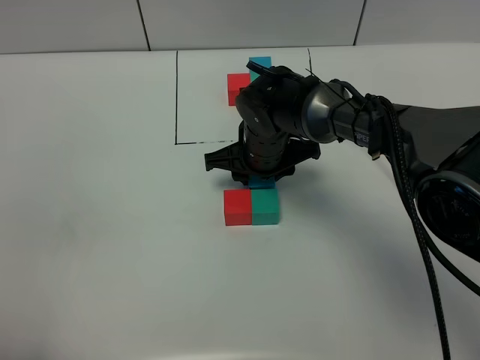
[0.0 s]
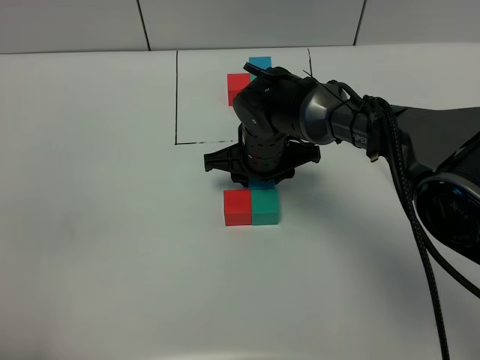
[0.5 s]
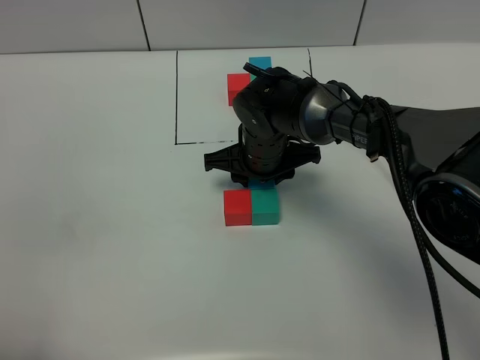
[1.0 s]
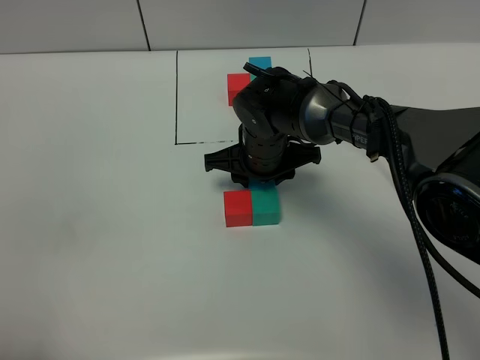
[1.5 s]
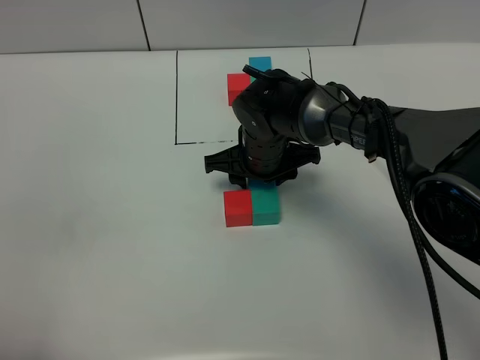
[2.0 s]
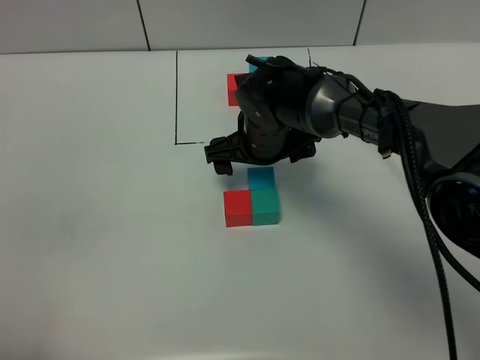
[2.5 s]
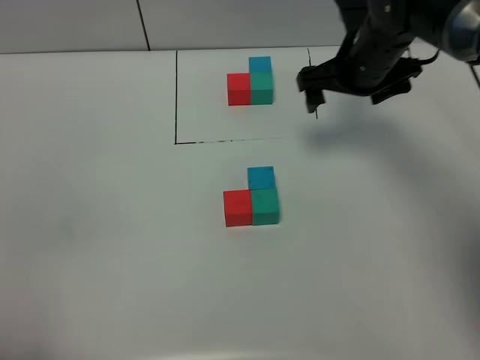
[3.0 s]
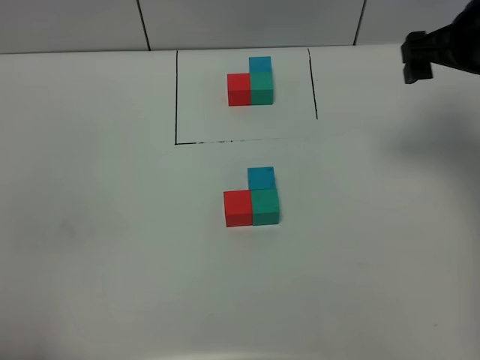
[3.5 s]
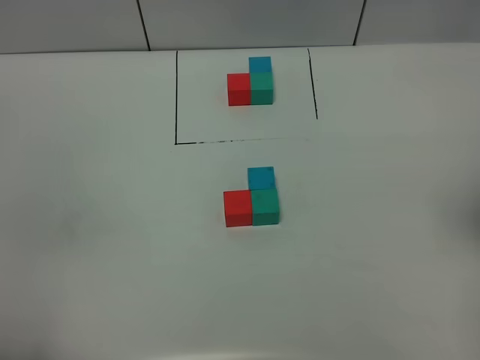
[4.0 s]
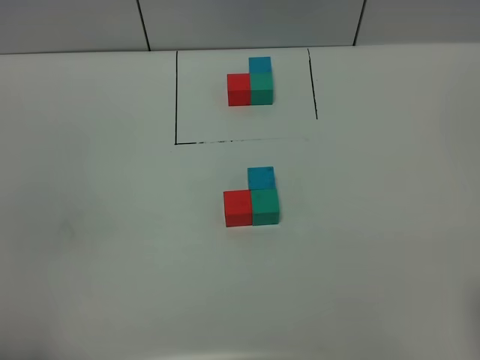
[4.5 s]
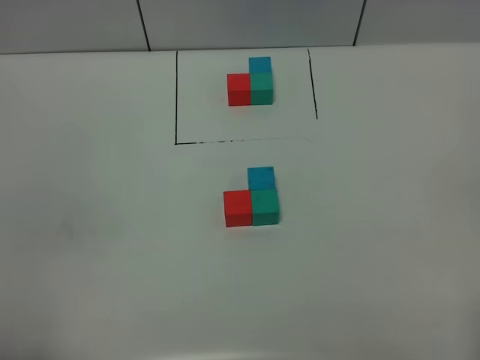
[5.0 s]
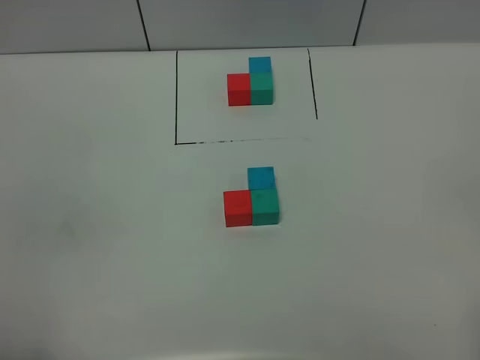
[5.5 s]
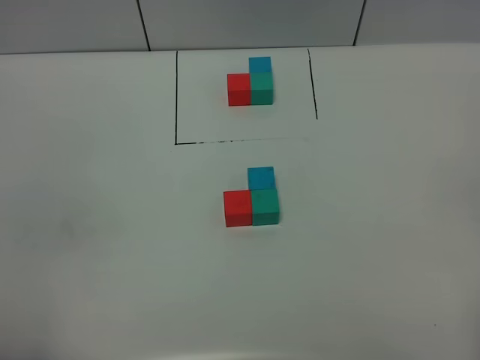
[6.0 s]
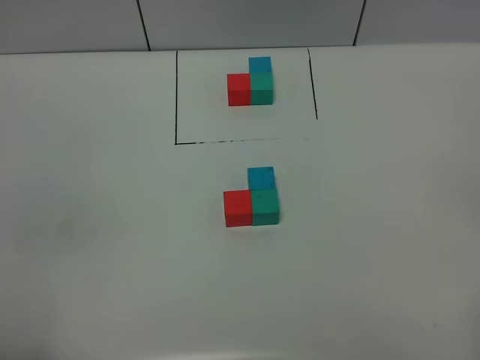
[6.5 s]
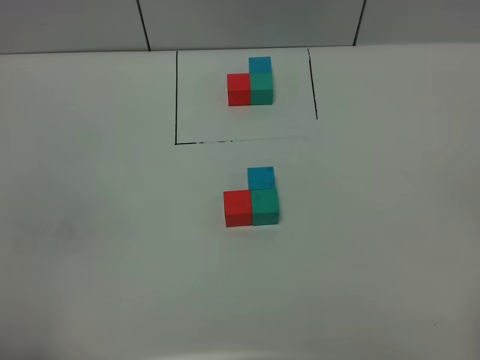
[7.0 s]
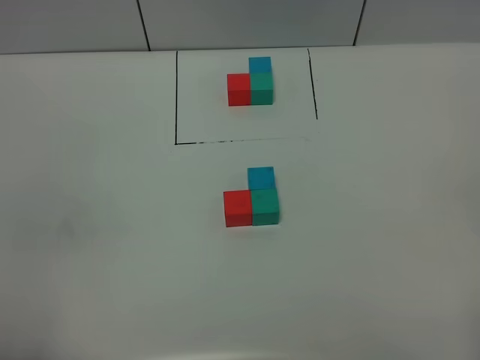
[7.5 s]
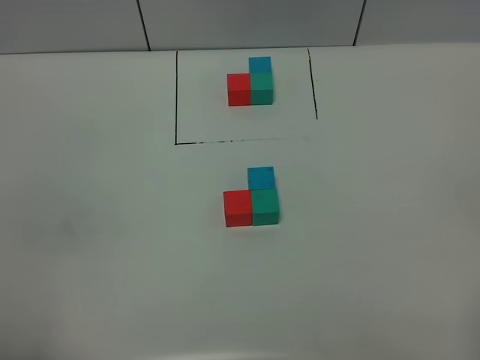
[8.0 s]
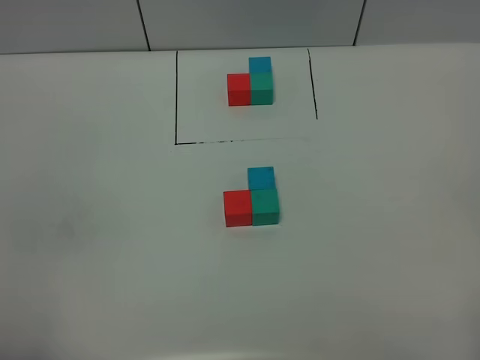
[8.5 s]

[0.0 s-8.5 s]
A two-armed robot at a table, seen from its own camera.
Task of the whole recording: According to the building block template in front, assemble the scattered blocks together.
Step, 0.0 to 2.5 s: Put the blue build block on the green build block.
0.0 to 2.0 s: Neither gripper changes place.
2.0 to 4.0 s: The right gripper is displaced to the right, upward and backward by roughly 40 cm, and opens up.

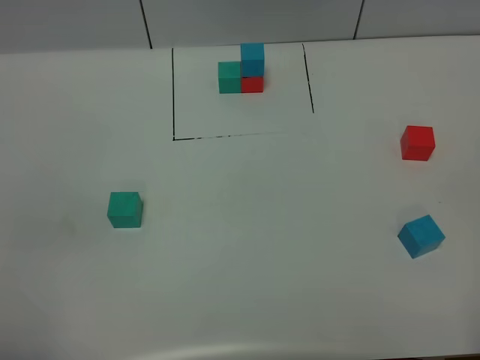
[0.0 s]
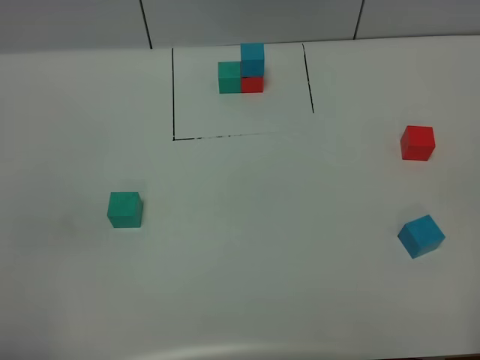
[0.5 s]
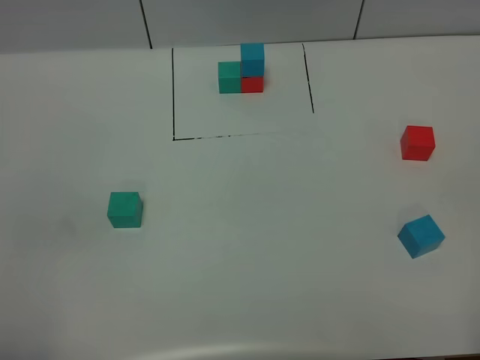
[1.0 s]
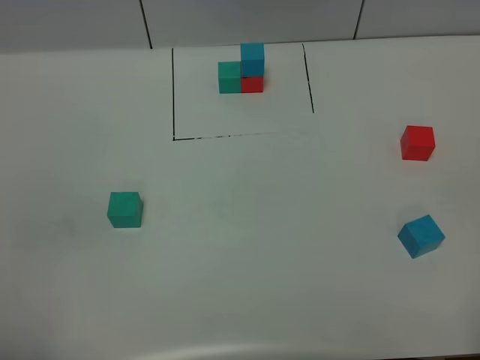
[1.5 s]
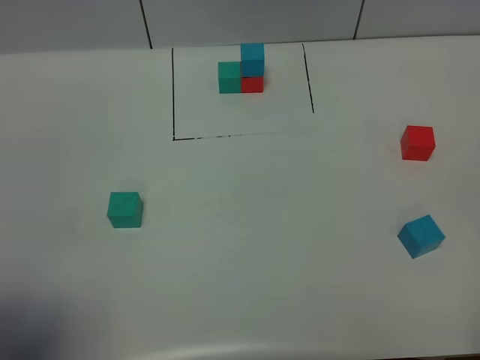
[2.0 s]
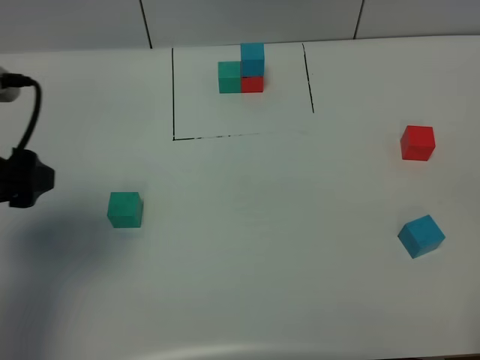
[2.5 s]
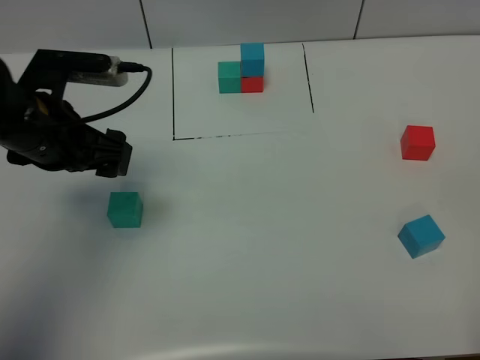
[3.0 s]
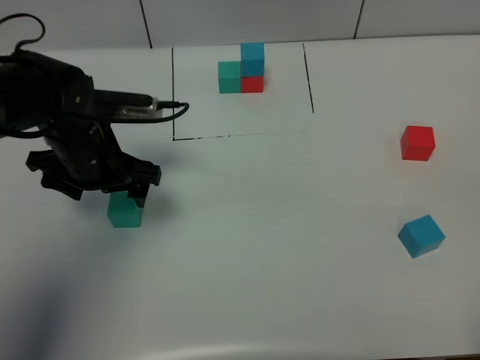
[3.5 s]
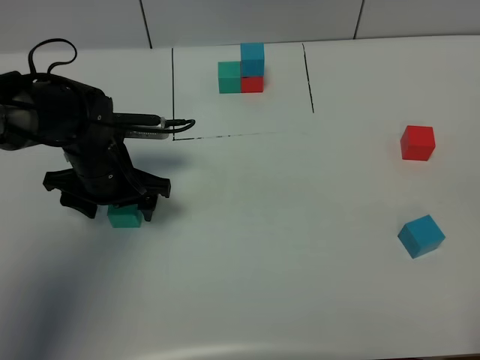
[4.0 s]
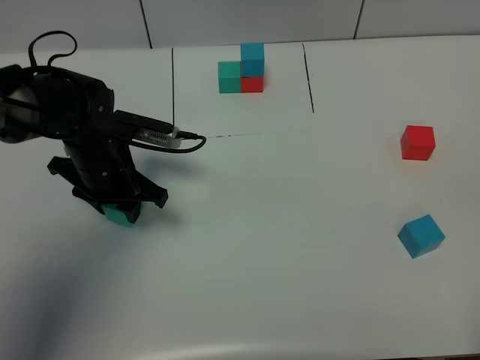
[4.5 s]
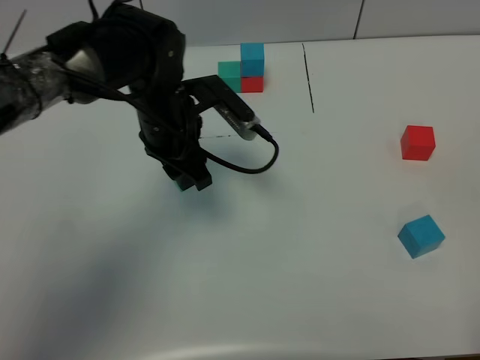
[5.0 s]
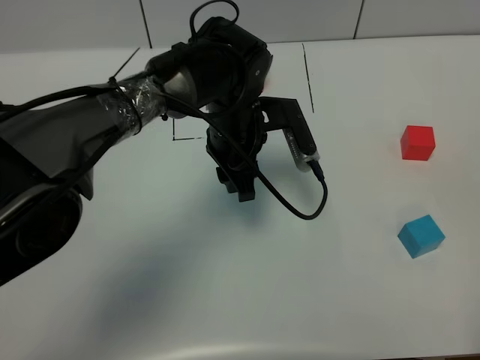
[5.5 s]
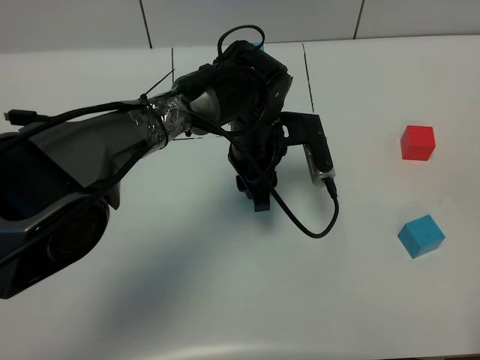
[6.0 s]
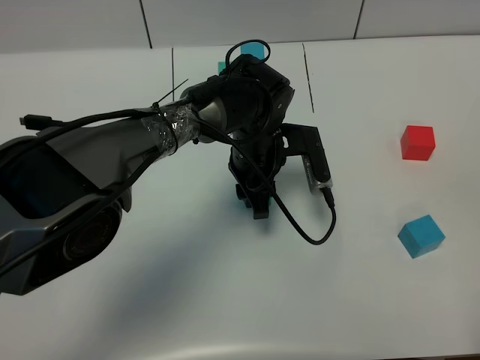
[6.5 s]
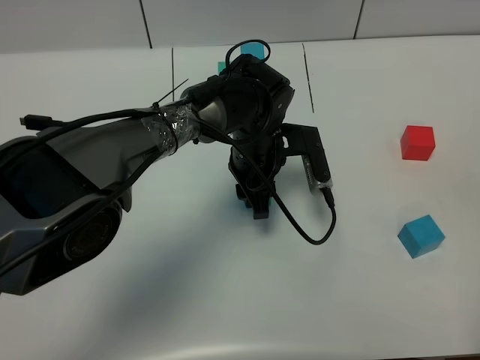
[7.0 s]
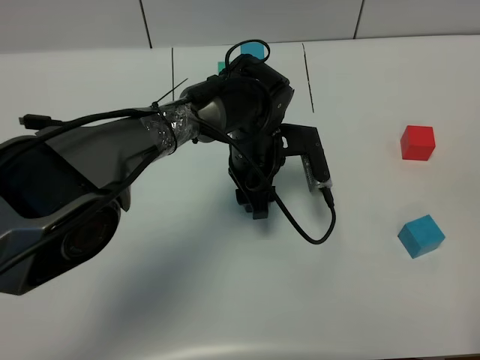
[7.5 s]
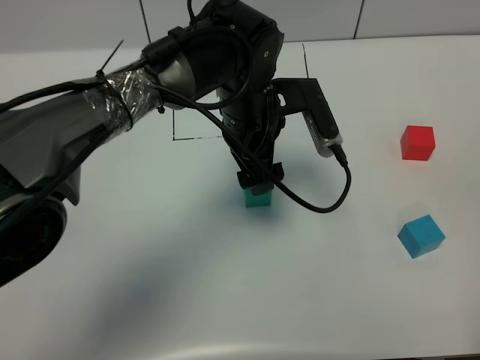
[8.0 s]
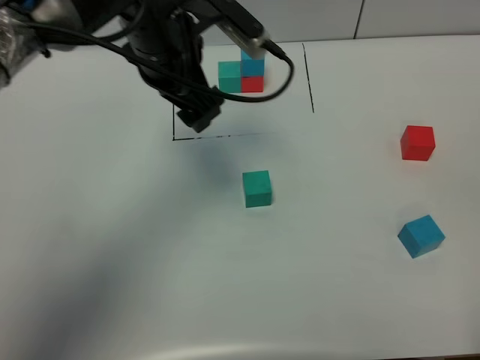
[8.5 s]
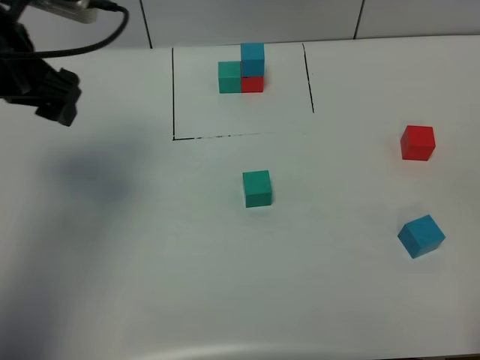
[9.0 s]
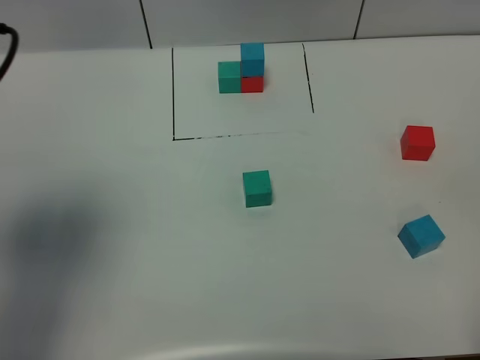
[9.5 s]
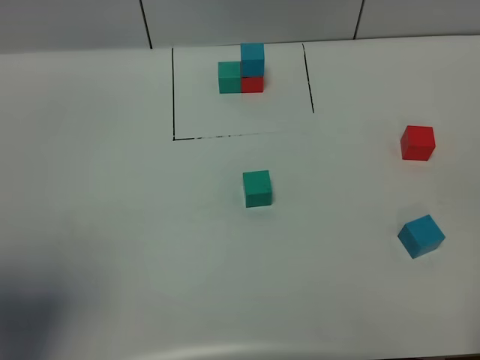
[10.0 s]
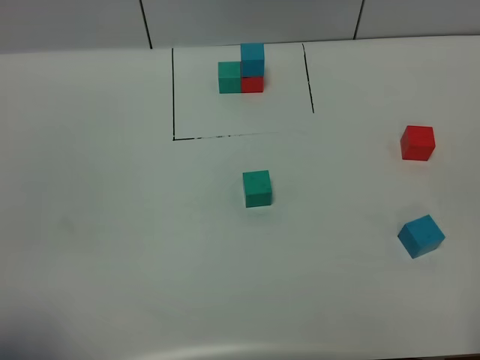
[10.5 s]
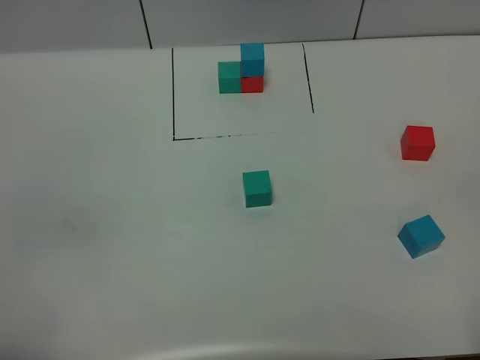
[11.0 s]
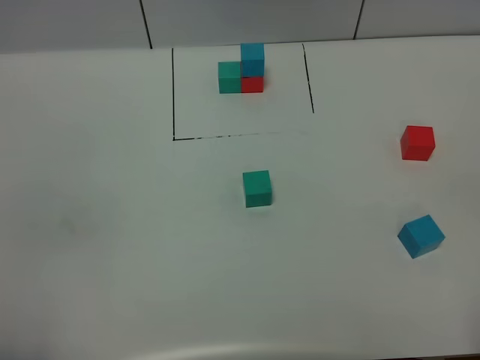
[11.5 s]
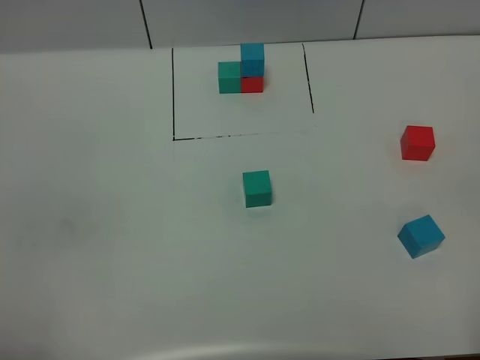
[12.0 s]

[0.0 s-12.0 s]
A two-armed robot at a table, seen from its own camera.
Task of the whole recording: According to the building block template in front, assemble the scattered blocks together.
Step, 0.0 to 7.0 s: Put the green build block in the center of the table.
0.0 to 2.0 s: The left gripper travels forward by some 5 cm.
2.0 to 4.0 s: The left gripper travels forward and downward by approximately 35 cm.
4.0 to 6.0 s: The left gripper shifts some 20 cm to the right, and closes up.
6.0 to 8.0 s: The left gripper goes some 5 cm upward, and opens its fingers.
8.0 to 10.0 s: The left gripper heads to the left, backward and upward, covering roughly 40 cm.
10.0 to 12.0 s: The left gripper moves backward and downward, approximately 15 cm.

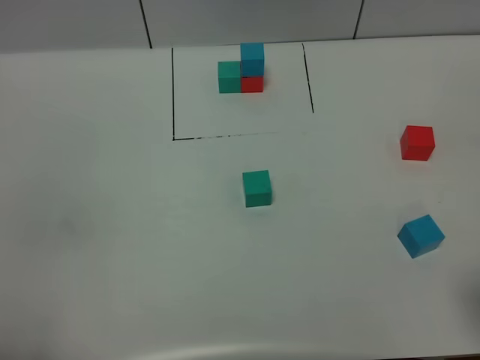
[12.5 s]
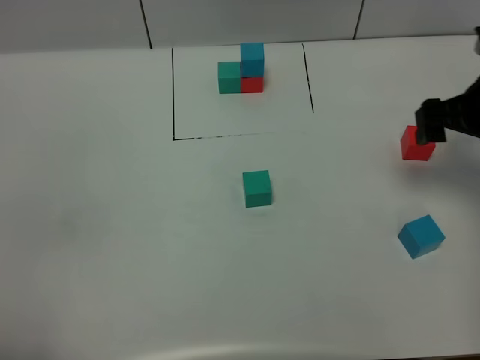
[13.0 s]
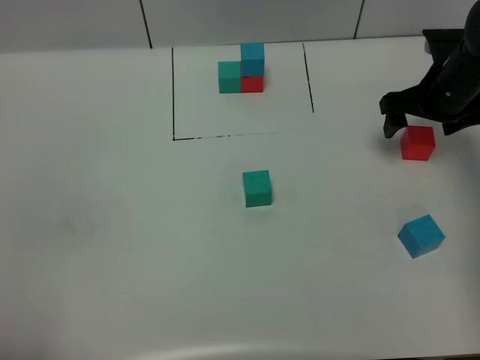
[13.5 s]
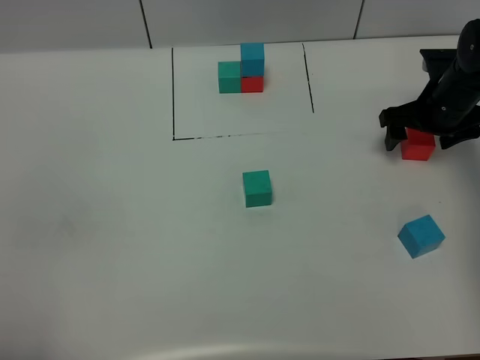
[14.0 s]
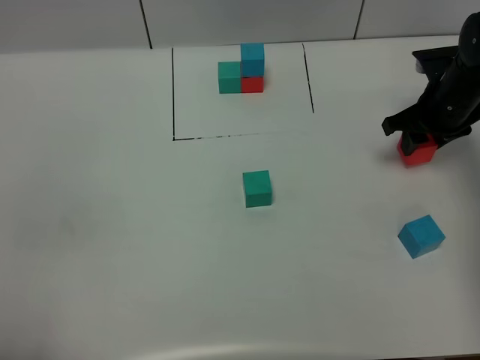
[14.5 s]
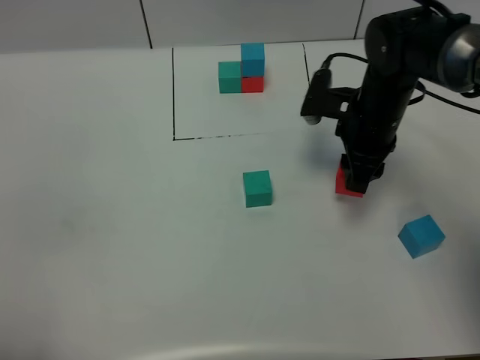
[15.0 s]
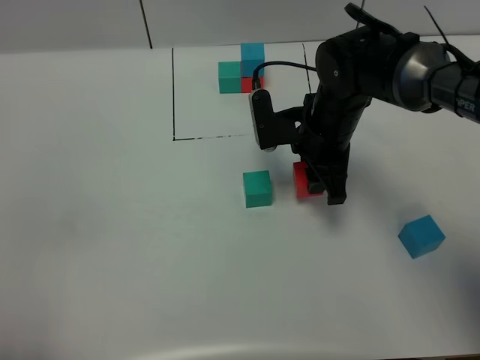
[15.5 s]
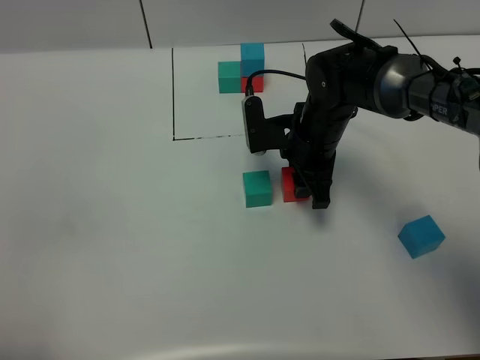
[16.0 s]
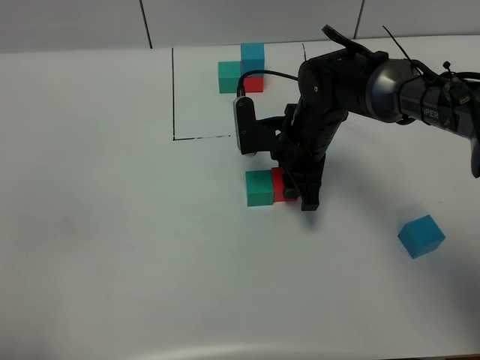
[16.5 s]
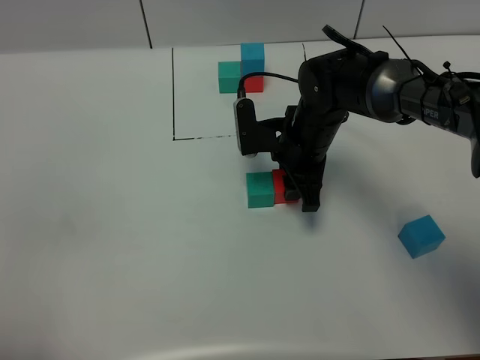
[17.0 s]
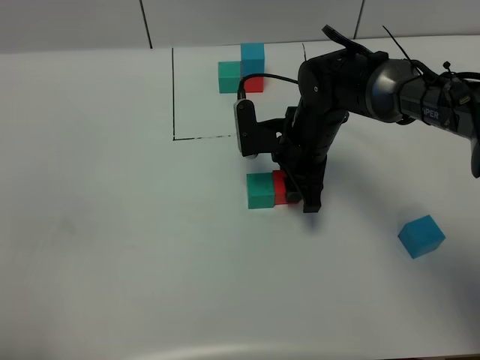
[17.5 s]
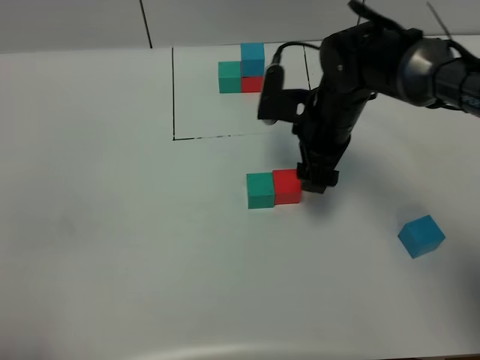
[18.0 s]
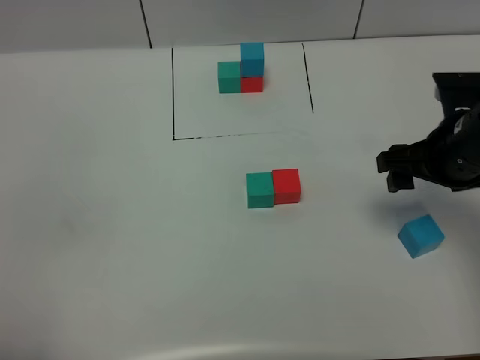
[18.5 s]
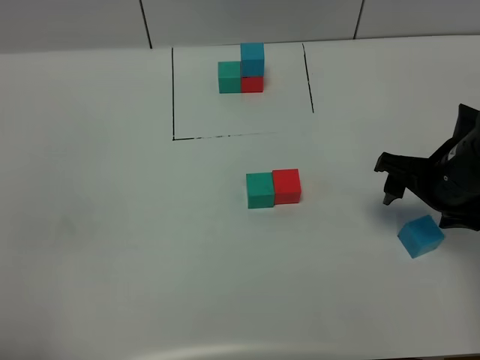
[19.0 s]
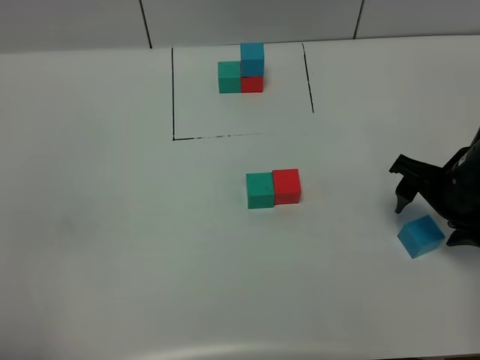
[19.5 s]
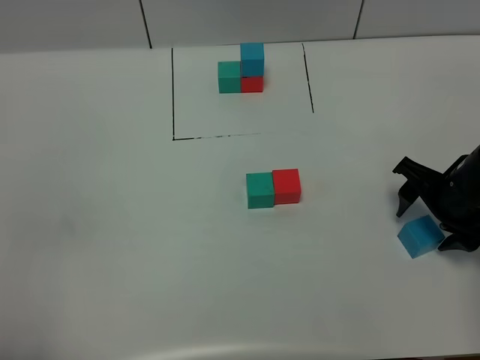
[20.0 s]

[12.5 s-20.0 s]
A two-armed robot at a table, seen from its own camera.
Task of the whole recording: According to the building block template in front, assemble the scattered blocks together.
Step, 12.5 to 17.5 s: Put the red build block on the right of the green build block.
12.5 to 14.5 s: The right gripper travels forward and downward by roughly 35 cm, and closes up.
14.5 to 16.5 s: The right gripper is displaced to the left by some 20 cm.
16.5 to 18.0 s: The right gripper shifts by some 5 cm, and opens its fingers.
18.0 to 20.0 s: The right gripper shifts approximately 15 cm to the right and backward.
